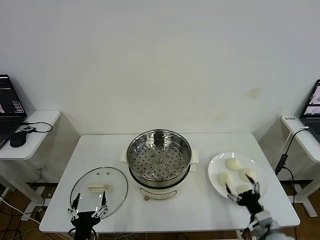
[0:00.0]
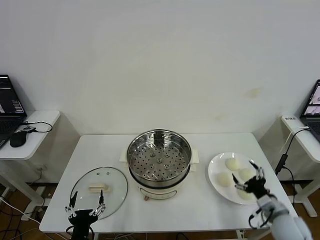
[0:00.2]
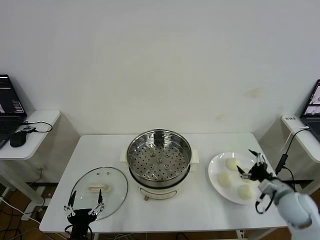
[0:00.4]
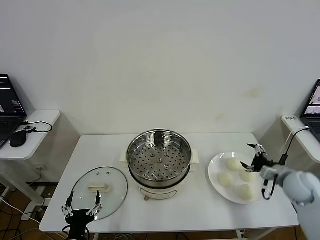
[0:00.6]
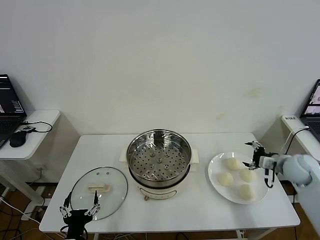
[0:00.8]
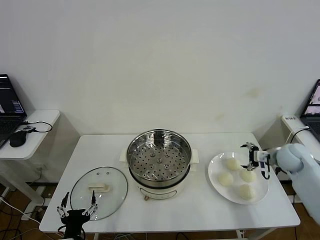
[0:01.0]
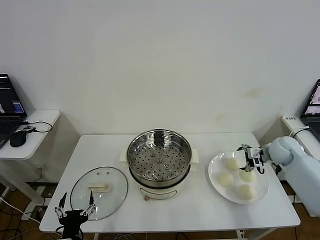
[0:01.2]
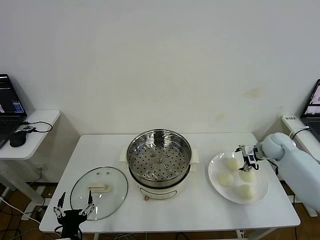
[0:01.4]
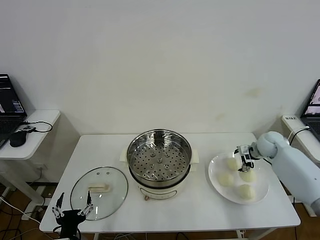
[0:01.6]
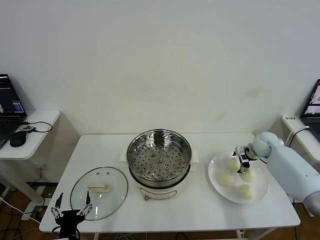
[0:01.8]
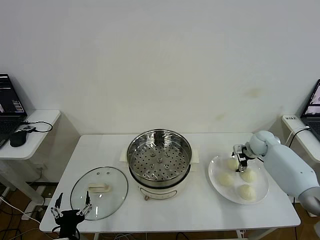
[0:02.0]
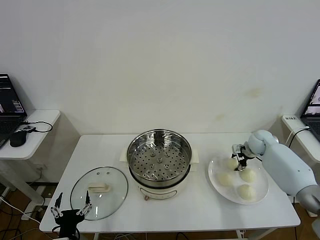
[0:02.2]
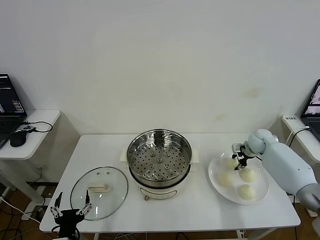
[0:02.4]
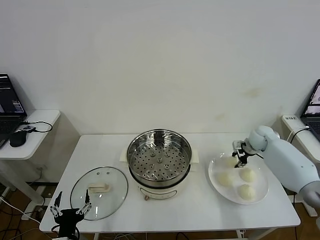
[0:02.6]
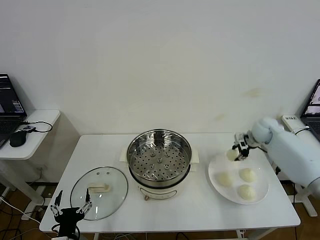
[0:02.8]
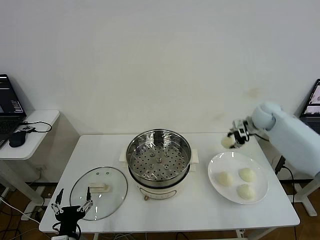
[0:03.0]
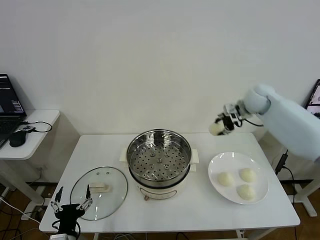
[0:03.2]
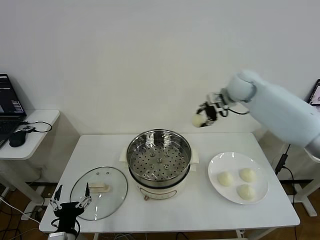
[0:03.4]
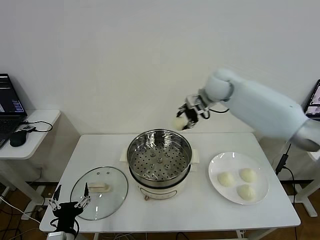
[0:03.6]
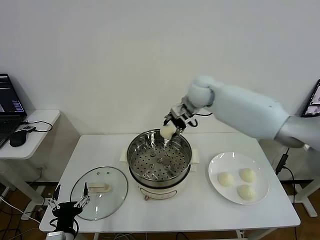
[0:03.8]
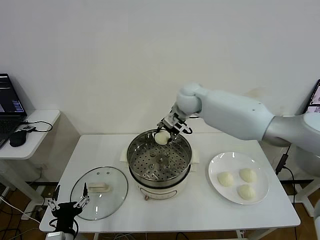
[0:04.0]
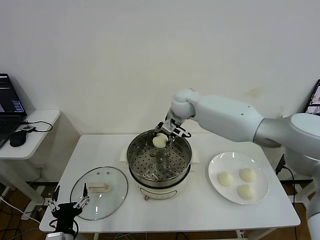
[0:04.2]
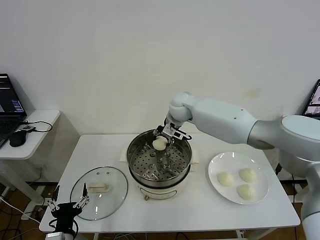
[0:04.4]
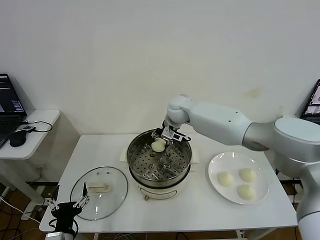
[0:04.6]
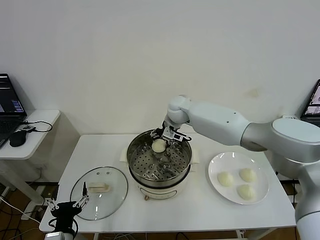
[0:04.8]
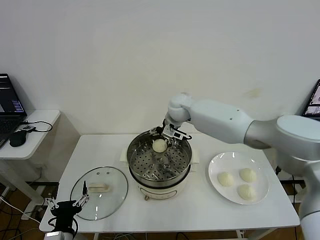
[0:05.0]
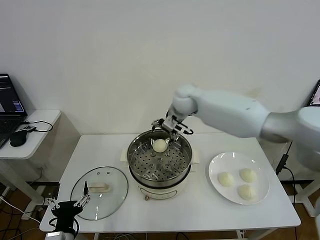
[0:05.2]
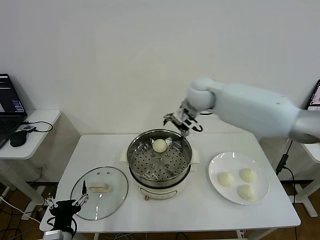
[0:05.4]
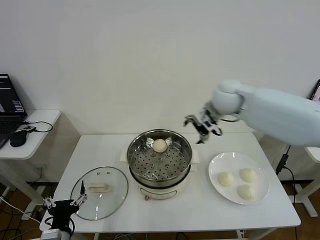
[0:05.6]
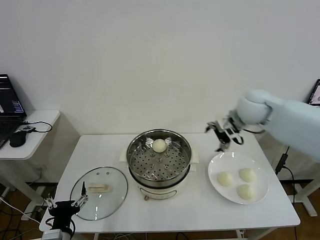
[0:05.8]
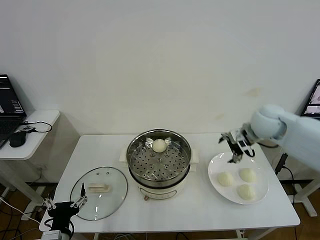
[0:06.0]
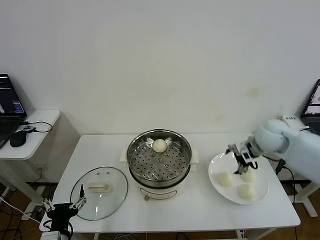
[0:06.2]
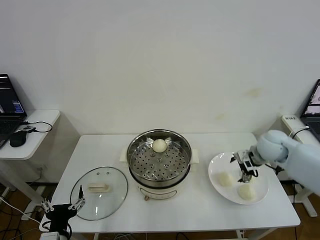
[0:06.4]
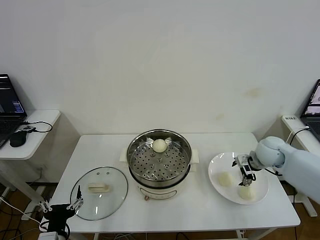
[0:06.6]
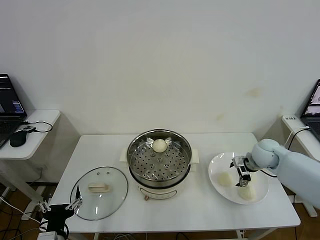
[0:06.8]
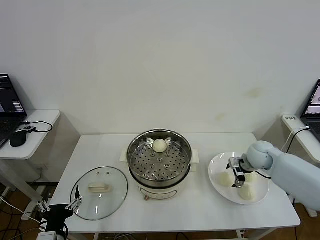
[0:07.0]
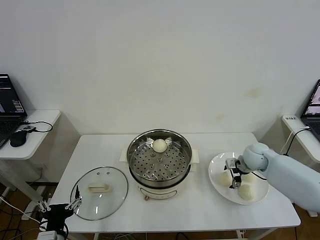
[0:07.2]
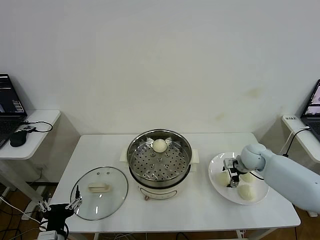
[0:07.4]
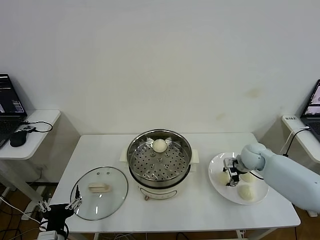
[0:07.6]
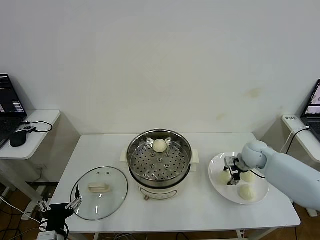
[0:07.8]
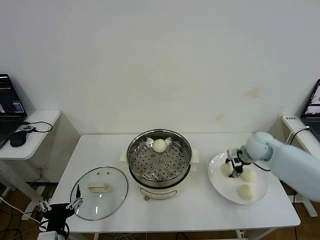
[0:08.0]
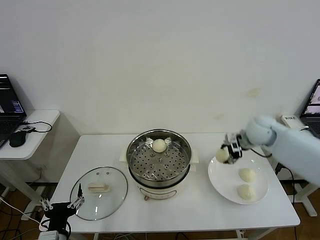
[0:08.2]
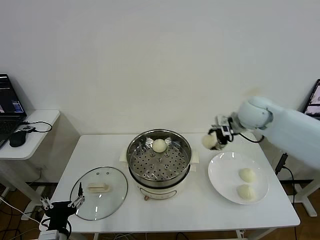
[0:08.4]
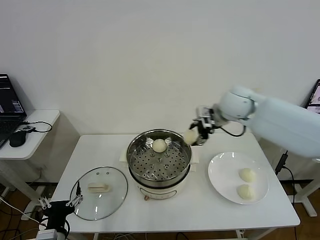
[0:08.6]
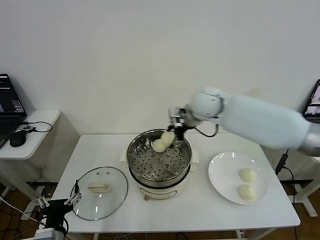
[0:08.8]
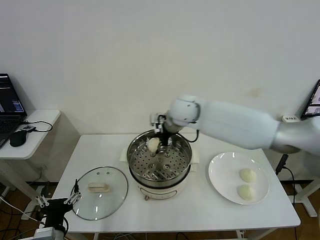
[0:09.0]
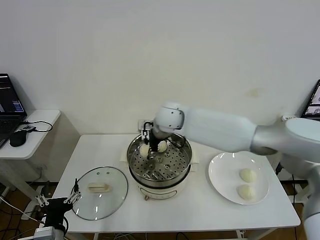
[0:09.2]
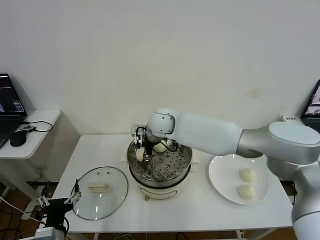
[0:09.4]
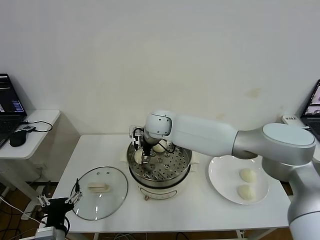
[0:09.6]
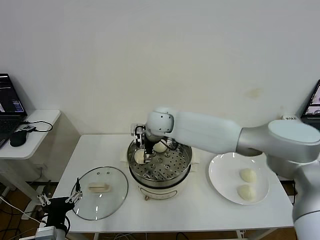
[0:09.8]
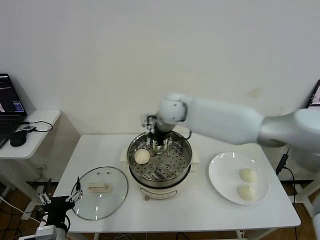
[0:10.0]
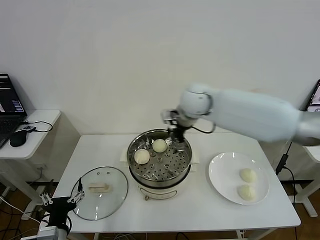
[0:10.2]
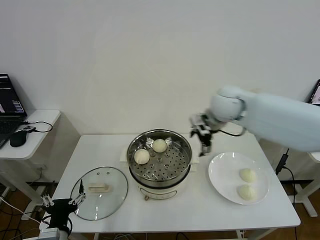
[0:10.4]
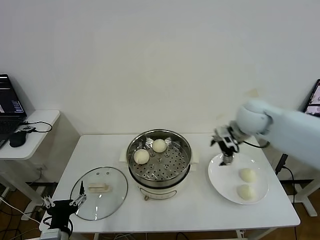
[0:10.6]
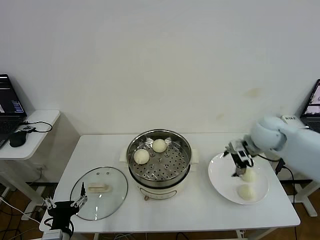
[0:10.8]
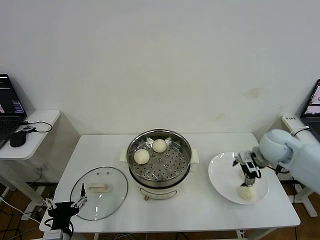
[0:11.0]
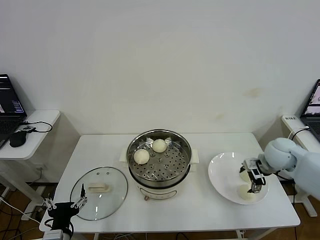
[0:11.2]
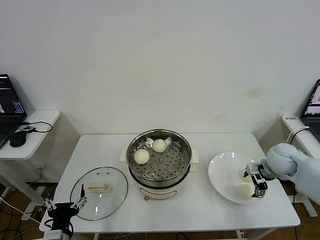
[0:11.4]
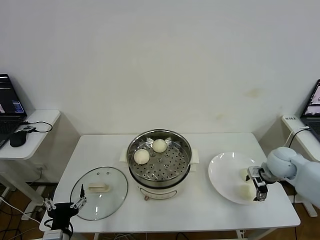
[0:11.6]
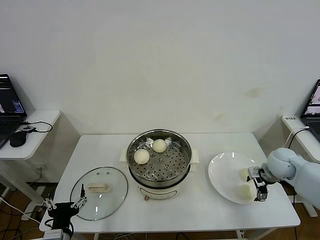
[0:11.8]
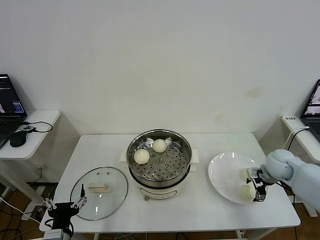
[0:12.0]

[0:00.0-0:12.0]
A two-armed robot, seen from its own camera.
Step, 0:00.0 to 0:02.4: Grasp the baozi in the plate with right gripper.
Step, 0:02.6 to 0:04.8: Place the baozi on the steamer with right gripper.
Step, 0:05.0 to 0:07.6: Grasp the baozi in the plate with right gripper.
Step, 0:07.8 to 0:09.6: Place the baozi on the steamer with right gripper.
0:01.6 to 0:03.0: The right gripper travels upward and to the left by some 20 cm, and closes up.
0:03.0 to 0:04.4: The right gripper travels to the left by about 30 cm.
0:04.4 to 0:06.0: The right gripper heads to the right and backward, covering roughly 30 cm, and opens.
0:06.0 to 0:07.6: The right gripper heads downward, covering roughly 15 cm, and closes its fingers.
0:07.6 to 0:09.0: The right gripper moves to the left and upward, approximately 35 cm.
0:09.0 to 0:10.4: The right gripper goes roughly 15 cm to the right, and opens.
0:10.4 to 0:12.0: The right gripper goes roughly 30 cm downward and to the right.

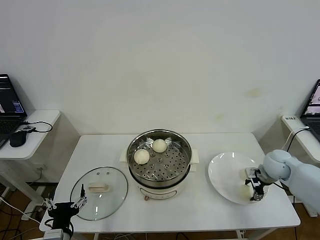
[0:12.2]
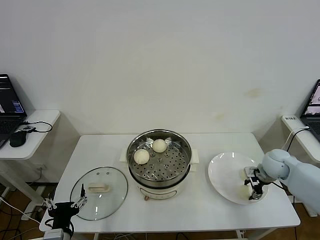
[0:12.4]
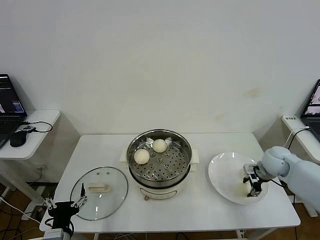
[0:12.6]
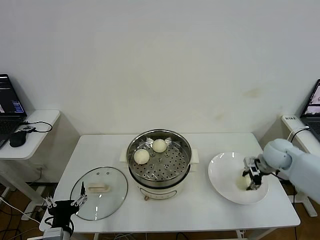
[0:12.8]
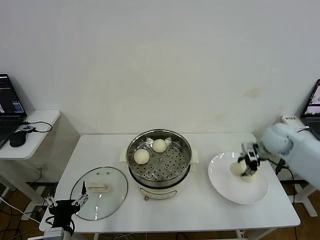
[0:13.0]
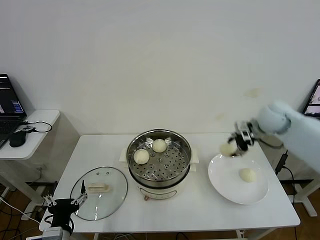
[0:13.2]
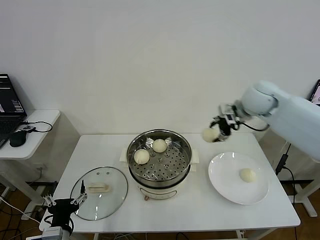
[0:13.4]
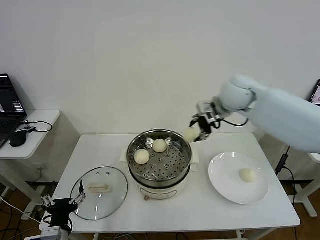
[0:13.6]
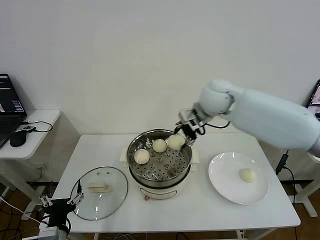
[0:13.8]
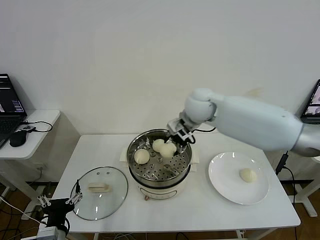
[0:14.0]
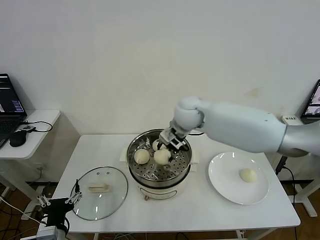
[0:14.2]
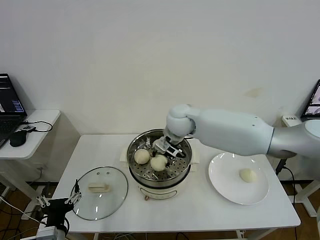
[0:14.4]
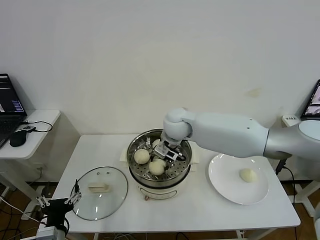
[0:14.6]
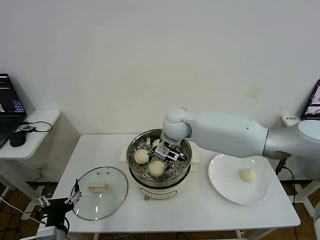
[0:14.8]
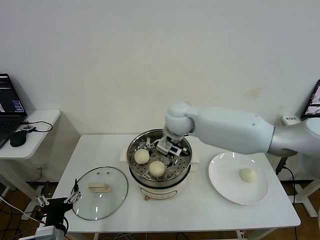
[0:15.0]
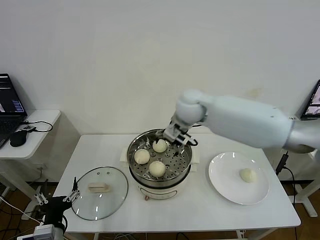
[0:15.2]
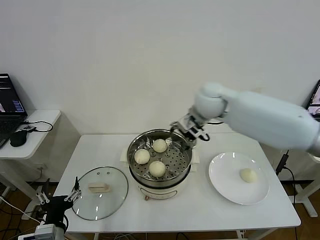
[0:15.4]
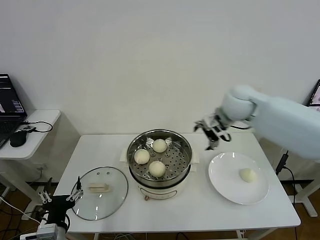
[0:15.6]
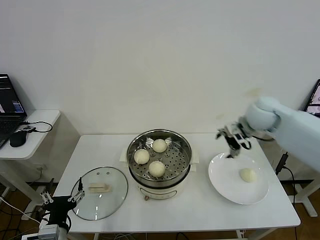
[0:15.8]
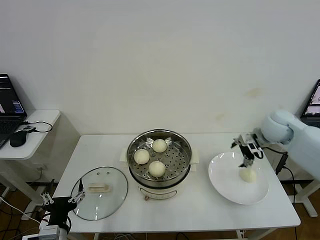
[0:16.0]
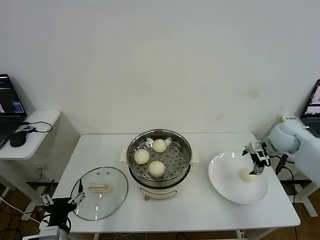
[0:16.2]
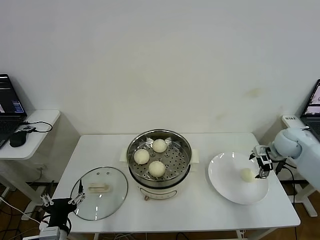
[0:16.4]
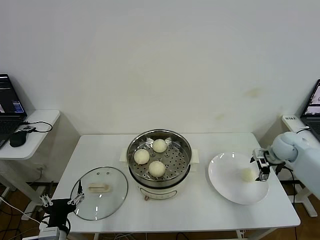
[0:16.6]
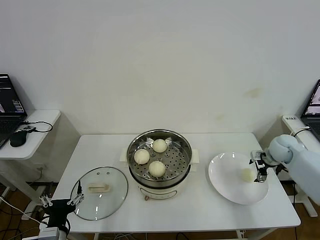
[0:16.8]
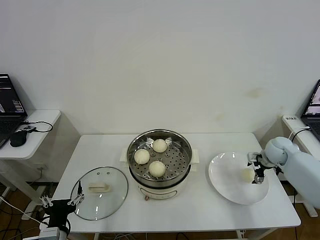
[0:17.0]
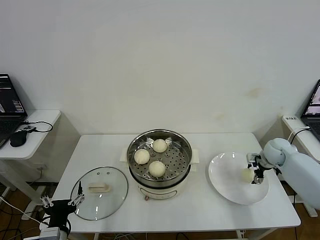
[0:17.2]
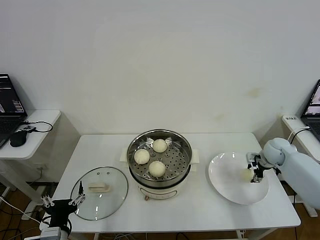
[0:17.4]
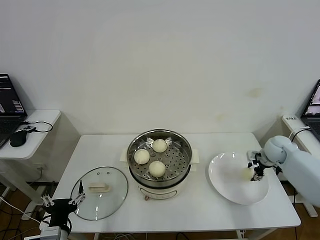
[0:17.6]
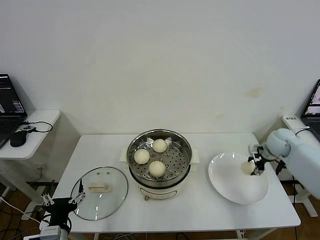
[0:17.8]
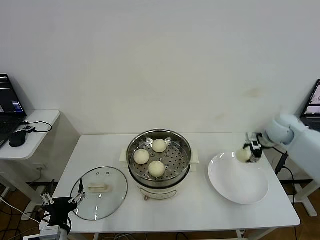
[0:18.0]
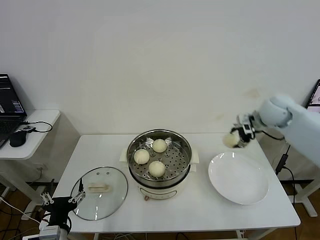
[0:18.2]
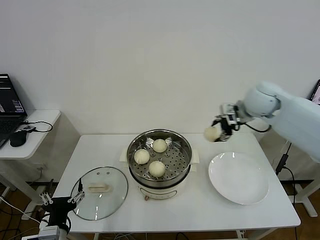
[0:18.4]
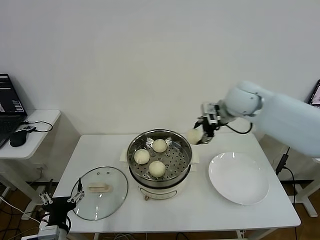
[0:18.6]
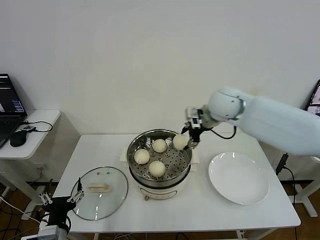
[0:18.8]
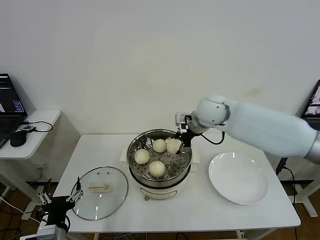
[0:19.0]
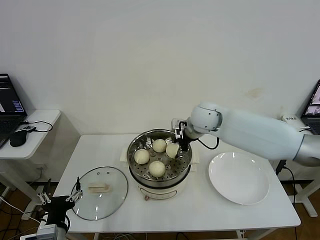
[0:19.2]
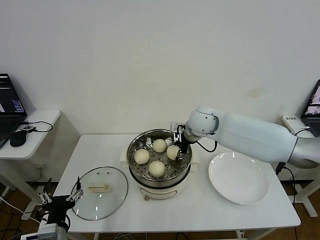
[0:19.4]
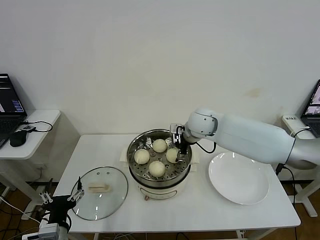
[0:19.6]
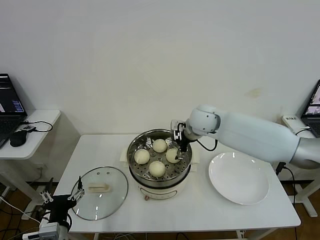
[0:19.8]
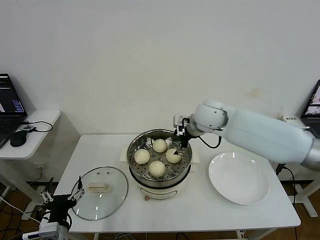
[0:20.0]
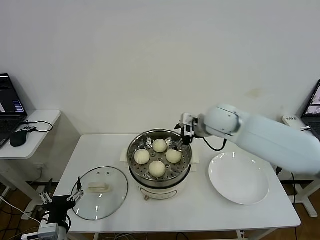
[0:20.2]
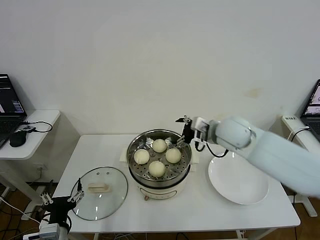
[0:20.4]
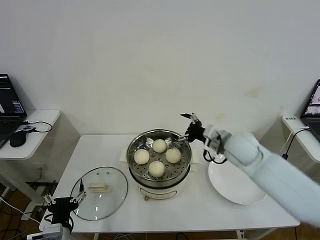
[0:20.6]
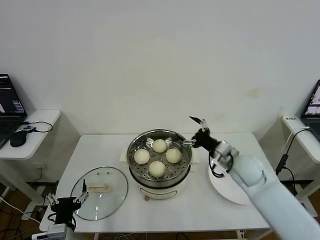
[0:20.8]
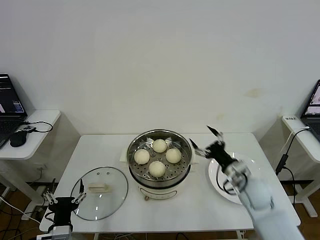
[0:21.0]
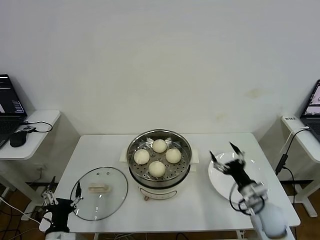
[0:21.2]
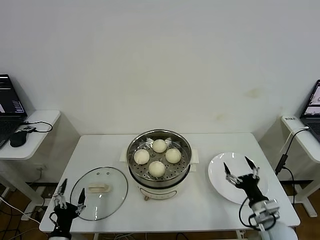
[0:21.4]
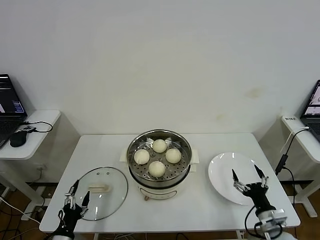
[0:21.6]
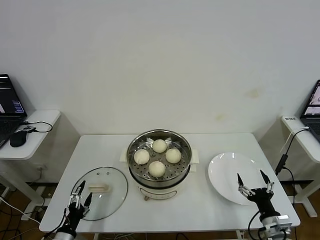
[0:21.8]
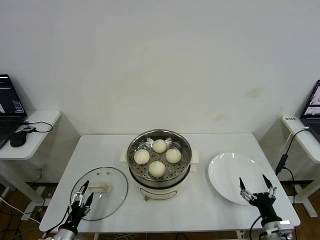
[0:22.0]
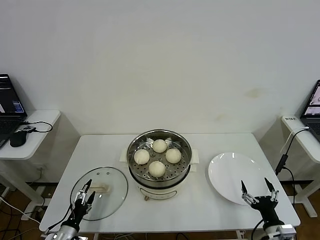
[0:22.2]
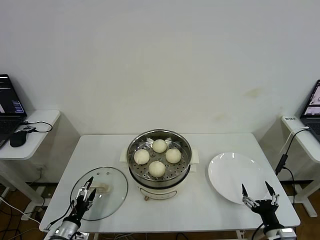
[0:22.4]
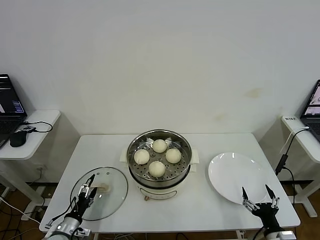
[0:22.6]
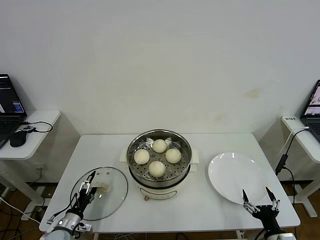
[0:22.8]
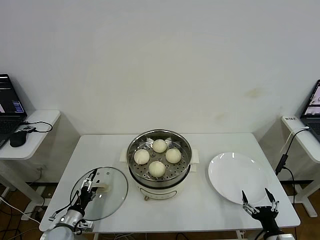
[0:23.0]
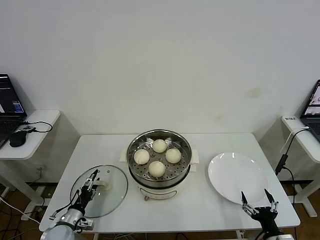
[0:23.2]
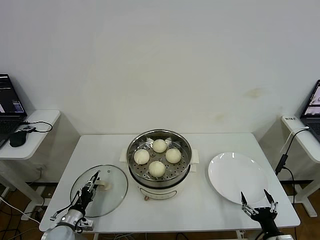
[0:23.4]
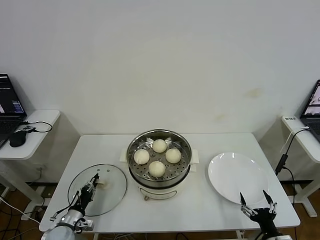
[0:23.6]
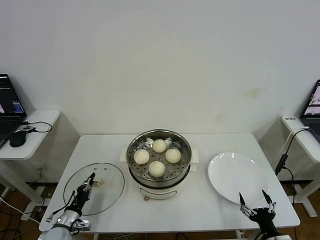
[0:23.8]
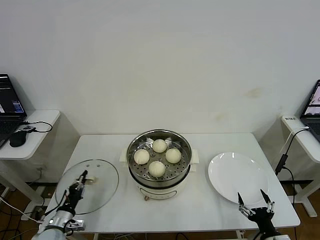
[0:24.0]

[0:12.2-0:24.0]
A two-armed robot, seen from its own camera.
Step, 0:12.6 to 0:14.8: Place the baozi on the steamer with right gripper.
Step, 0:15.0 to 0:17.4: Grasp the baozi in the plate with right gripper.
Step, 0:17.6 to 0:19.6: Place the baozi on the steamer with right gripper.
Step, 0:19.8 to 0:23.8: Grasp the pot lid with left gripper.
0:12.2 to 0:13.6: The right gripper goes about 30 cm upward and to the left.
0:13.6 to 0:15.2: The right gripper goes some 10 cm to the left, and opens its fingers.
0:15.2 to 0:16.6: The right gripper goes about 40 cm to the right and downward.
0:16.6 to 0:18.2: The right gripper goes roughly 15 cm upward and to the left, and closes.
0:18.2 to 0:19.6: The right gripper moves to the left, some 20 cm, and opens its fingers.
0:19.6 to 0:21.0: The right gripper moves backward, to the right and downward, approximately 25 cm.
0:21.0 to 0:22.6: The left gripper is displaced downward, to the left and forward by about 15 cm; the right gripper shifts about 25 cm backward, downward and to the right.
0:22.6 to 0:24.0: The left gripper closes.
